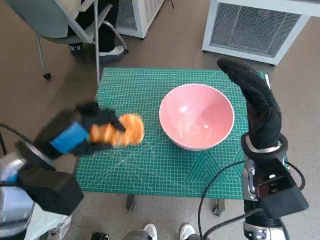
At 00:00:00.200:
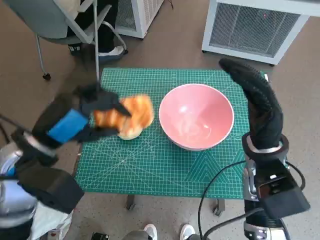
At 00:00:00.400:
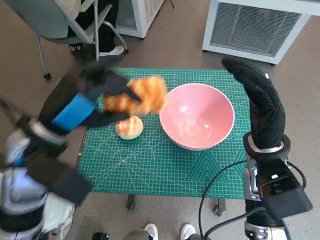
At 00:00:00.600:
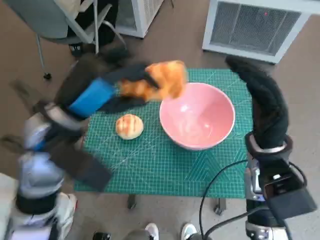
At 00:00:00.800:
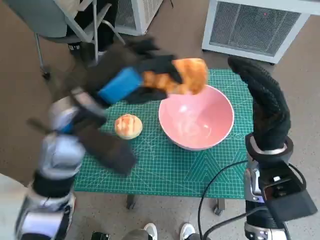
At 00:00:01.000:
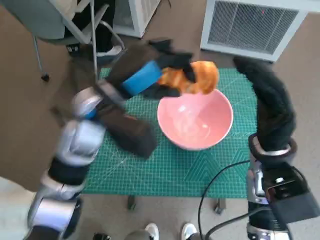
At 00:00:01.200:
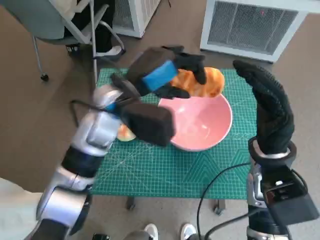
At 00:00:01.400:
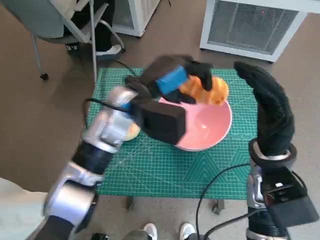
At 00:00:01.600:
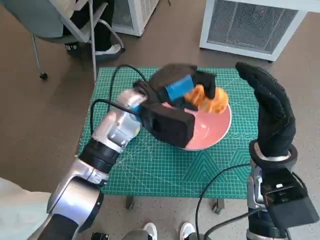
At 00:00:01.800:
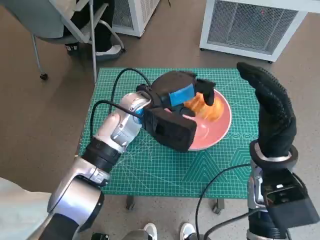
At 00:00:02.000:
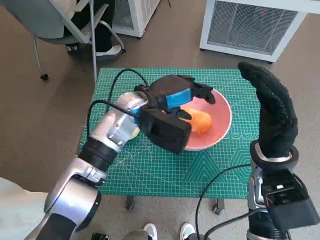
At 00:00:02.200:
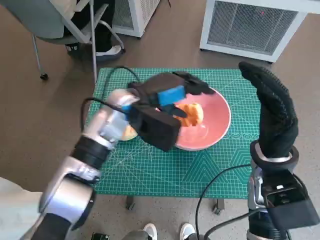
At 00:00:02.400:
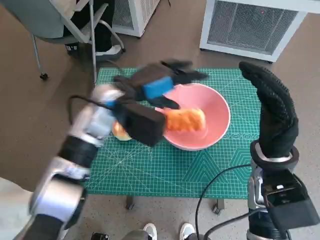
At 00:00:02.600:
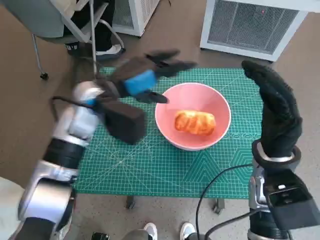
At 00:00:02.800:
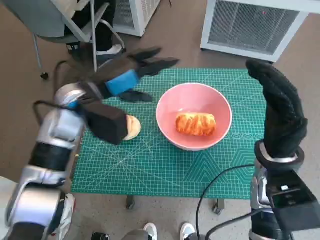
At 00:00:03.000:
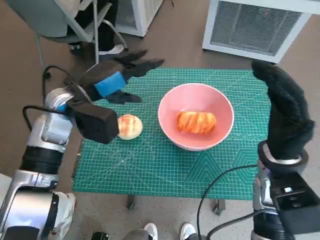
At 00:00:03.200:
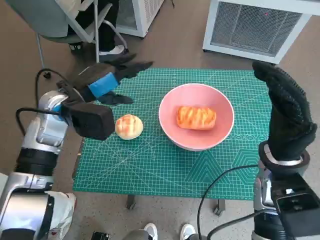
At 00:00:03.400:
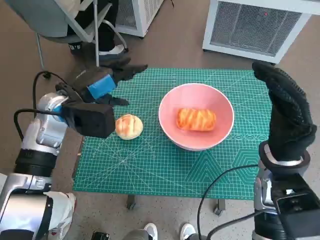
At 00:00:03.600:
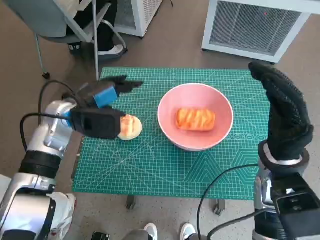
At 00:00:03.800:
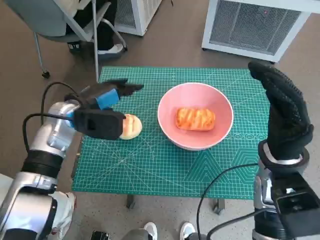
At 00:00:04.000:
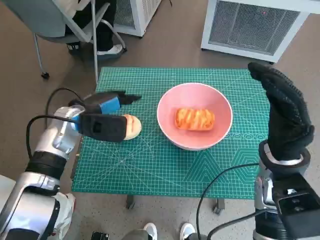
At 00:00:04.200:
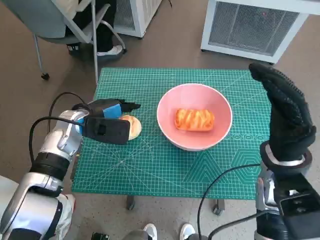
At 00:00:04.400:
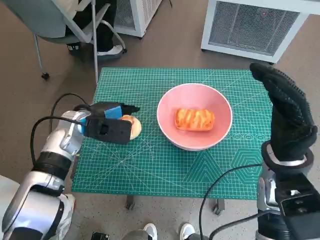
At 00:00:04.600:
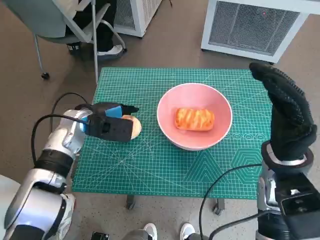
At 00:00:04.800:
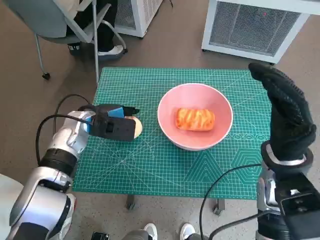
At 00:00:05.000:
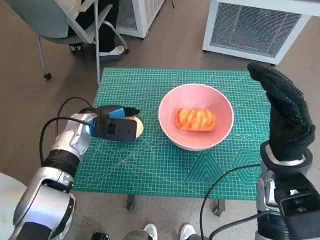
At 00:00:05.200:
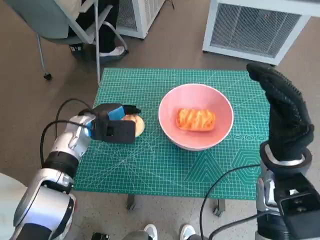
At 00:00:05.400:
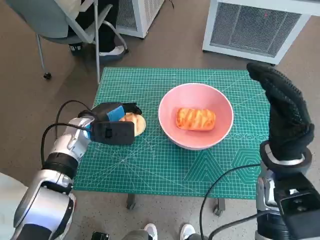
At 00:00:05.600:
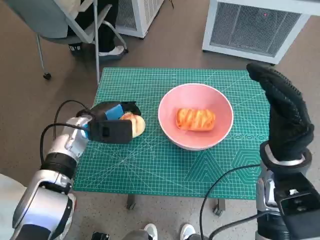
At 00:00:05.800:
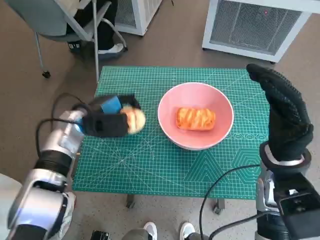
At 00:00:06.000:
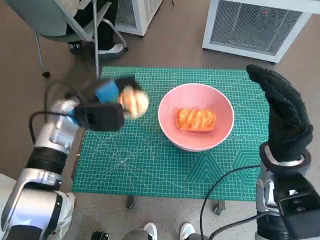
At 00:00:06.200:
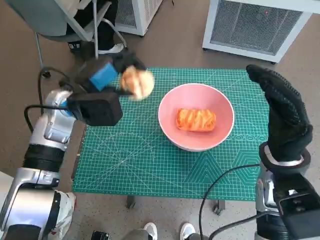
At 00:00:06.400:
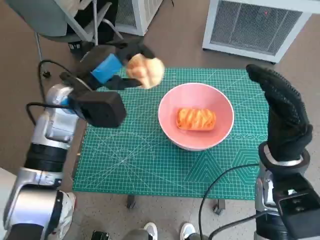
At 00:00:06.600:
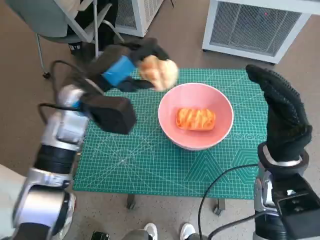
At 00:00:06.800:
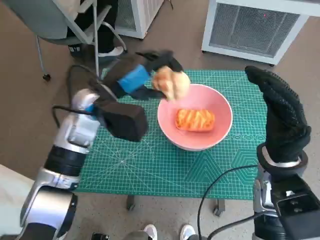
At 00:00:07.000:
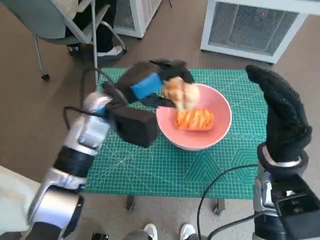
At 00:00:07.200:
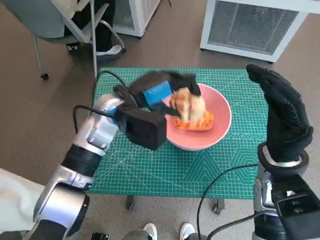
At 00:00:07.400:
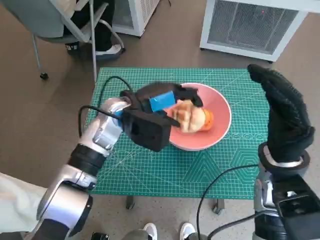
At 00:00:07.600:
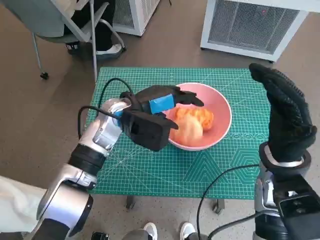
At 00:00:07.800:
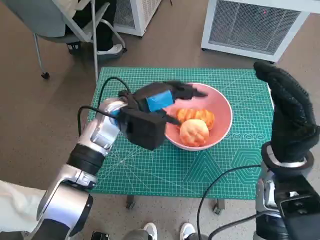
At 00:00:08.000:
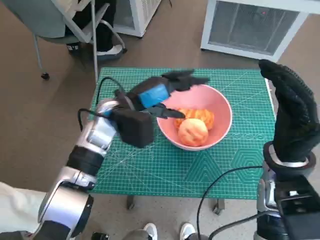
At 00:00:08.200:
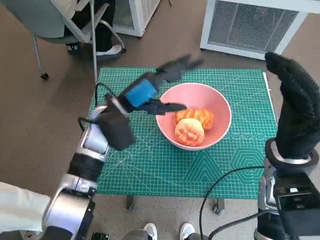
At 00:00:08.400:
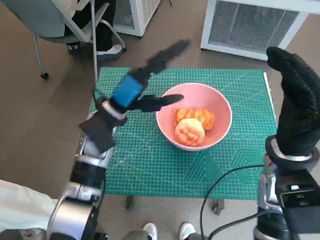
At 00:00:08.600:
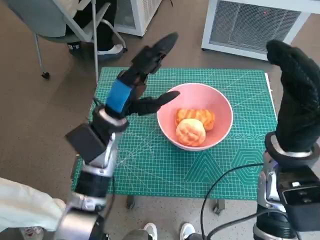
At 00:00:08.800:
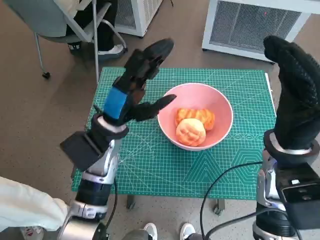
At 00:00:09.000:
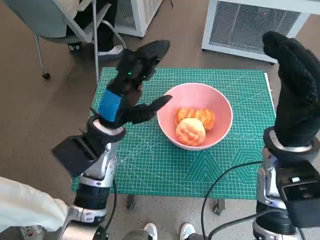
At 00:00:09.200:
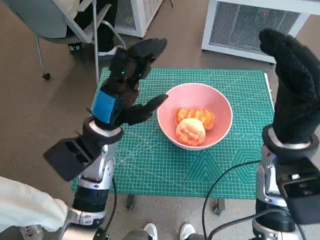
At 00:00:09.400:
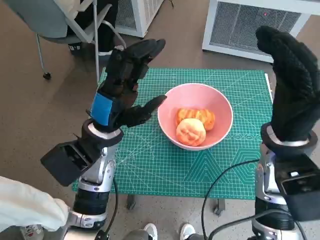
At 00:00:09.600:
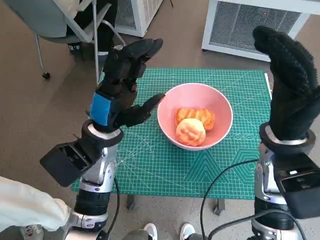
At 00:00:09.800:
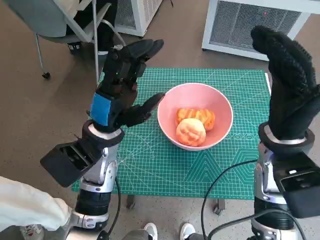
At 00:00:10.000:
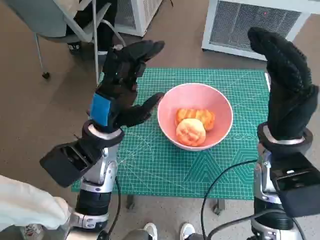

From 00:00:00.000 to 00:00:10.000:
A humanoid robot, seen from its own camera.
Task of the whole recording: Push the bowl to the center of the table and put the bread into the bowl.
Step, from 00:00:00.000 to 00:00:02.400: Place the long bread in pink bowl with left hand.
Step, from 00:00:02.600 to 00:00:05.000: Grasp the round bread with left hand.
Step, from 00:00:05.200 to 00:00:08.000: Place the round bread in pink bowl with left hand.
From 00:00:00.000 to 00:00:01.400: The left hand heads to the right and forward, covering about 20 cm.
From 00:00:01.400 to 00:00:02.800: The left hand shifts about 10 cm to the left.
From 00:00:02.800 to 00:00:04.200: The left hand goes some 10 cm downward.
From 00:00:04.200 to 00:00:05.800: The hands stay close to where they were, moving slightly.
From 00:00:05.800 to 00:00:07.200: The left hand goes some 10 cm to the right and upward.

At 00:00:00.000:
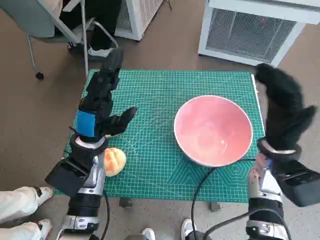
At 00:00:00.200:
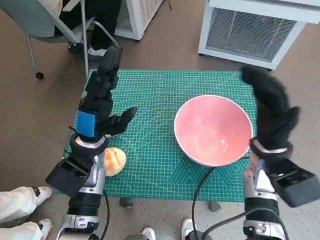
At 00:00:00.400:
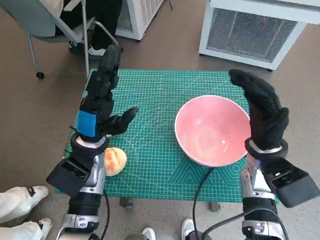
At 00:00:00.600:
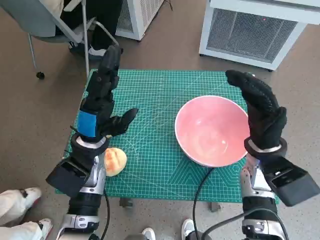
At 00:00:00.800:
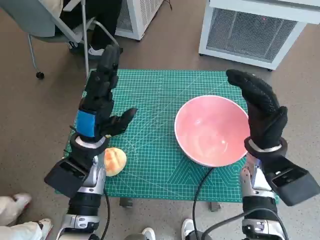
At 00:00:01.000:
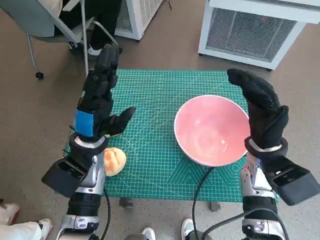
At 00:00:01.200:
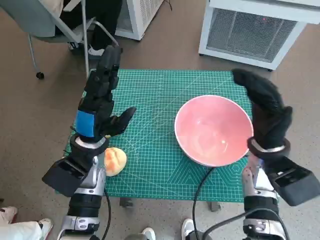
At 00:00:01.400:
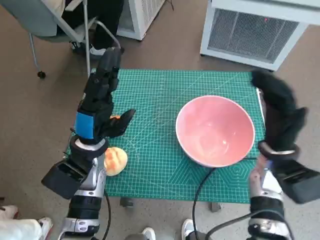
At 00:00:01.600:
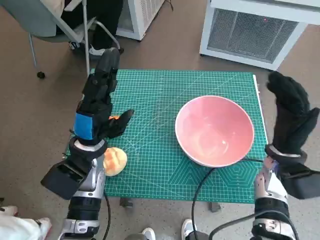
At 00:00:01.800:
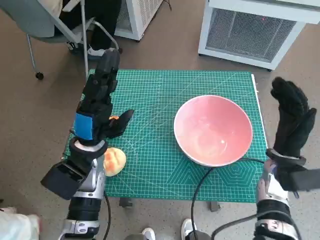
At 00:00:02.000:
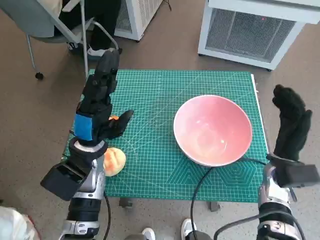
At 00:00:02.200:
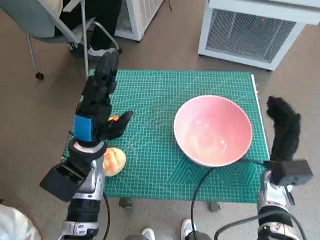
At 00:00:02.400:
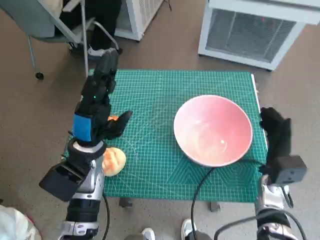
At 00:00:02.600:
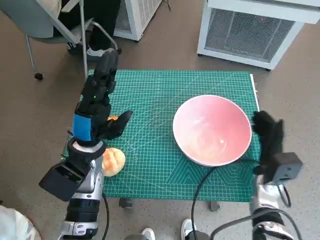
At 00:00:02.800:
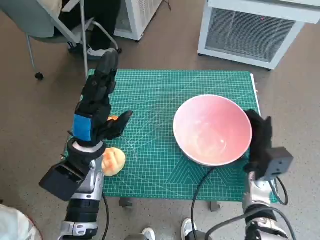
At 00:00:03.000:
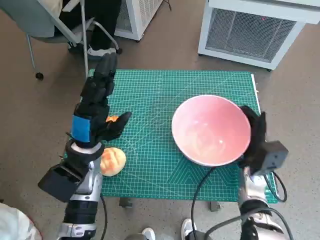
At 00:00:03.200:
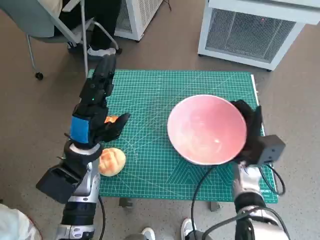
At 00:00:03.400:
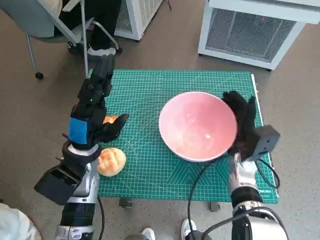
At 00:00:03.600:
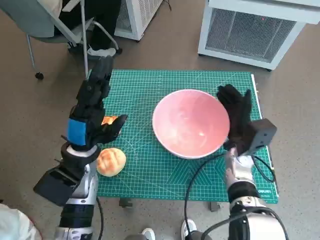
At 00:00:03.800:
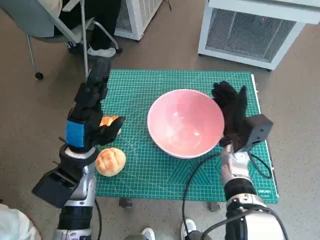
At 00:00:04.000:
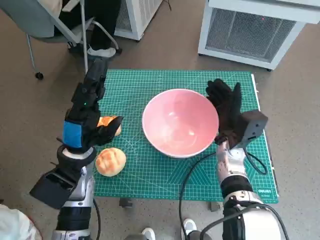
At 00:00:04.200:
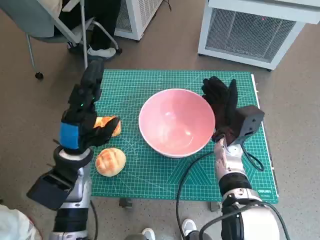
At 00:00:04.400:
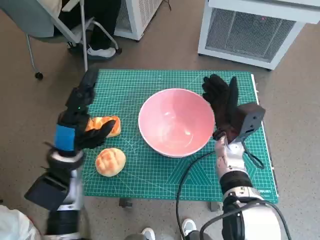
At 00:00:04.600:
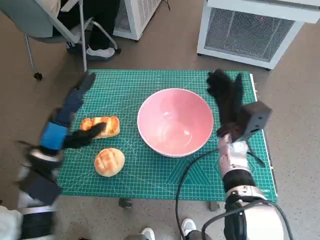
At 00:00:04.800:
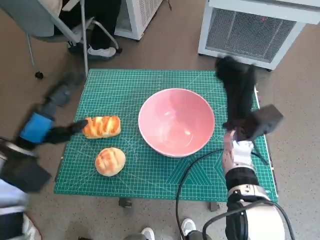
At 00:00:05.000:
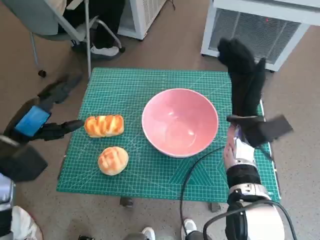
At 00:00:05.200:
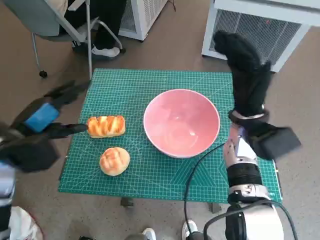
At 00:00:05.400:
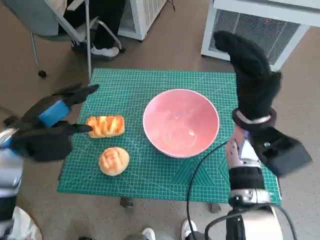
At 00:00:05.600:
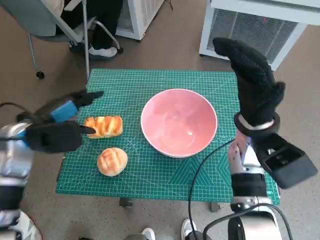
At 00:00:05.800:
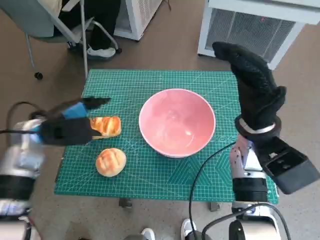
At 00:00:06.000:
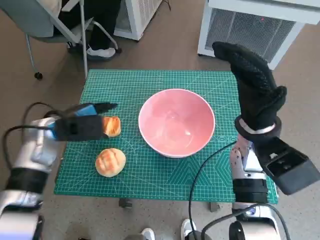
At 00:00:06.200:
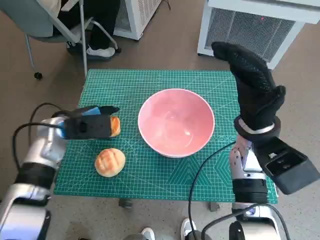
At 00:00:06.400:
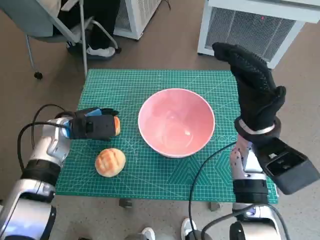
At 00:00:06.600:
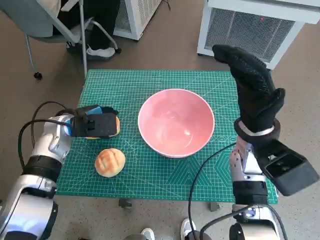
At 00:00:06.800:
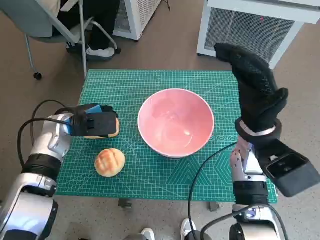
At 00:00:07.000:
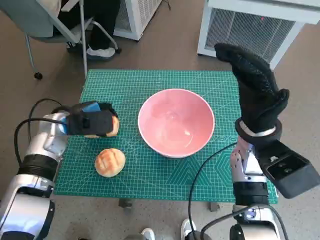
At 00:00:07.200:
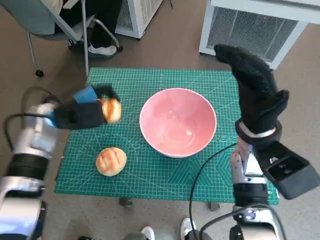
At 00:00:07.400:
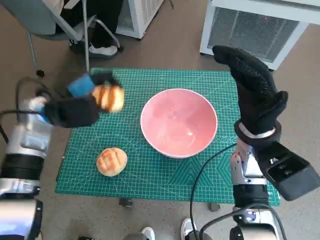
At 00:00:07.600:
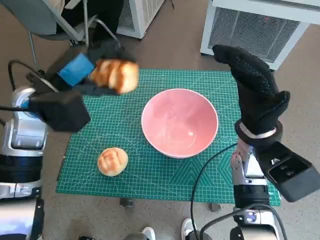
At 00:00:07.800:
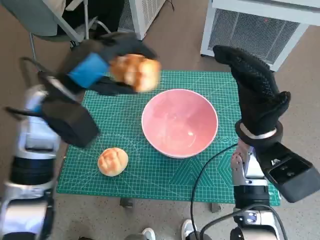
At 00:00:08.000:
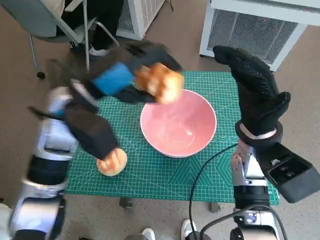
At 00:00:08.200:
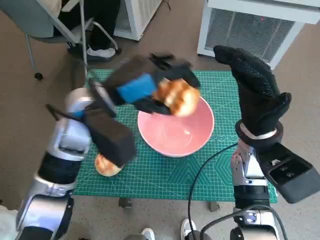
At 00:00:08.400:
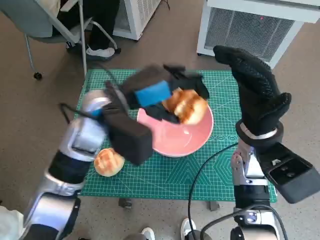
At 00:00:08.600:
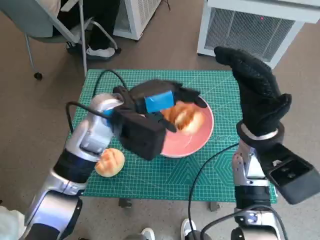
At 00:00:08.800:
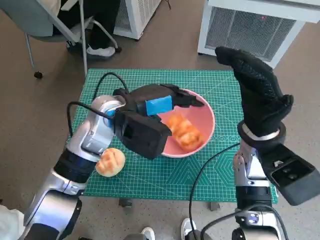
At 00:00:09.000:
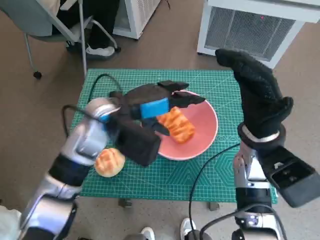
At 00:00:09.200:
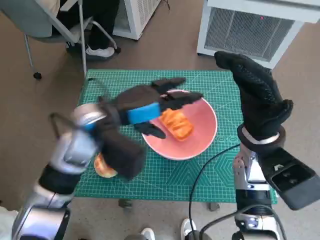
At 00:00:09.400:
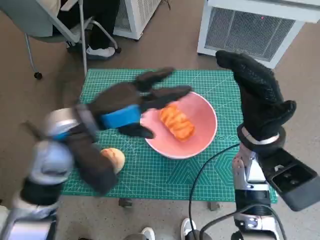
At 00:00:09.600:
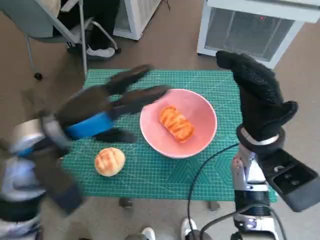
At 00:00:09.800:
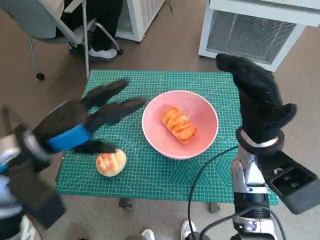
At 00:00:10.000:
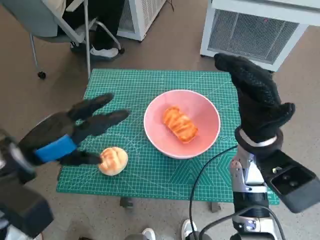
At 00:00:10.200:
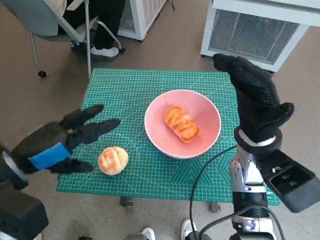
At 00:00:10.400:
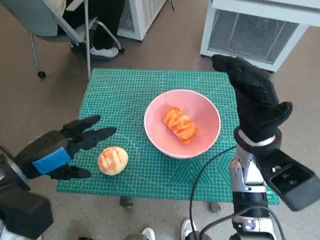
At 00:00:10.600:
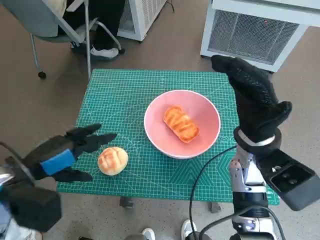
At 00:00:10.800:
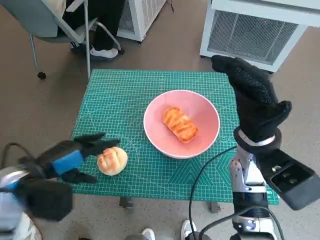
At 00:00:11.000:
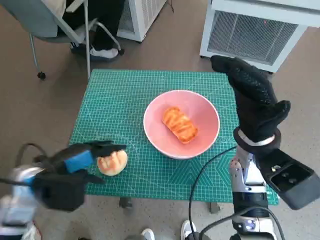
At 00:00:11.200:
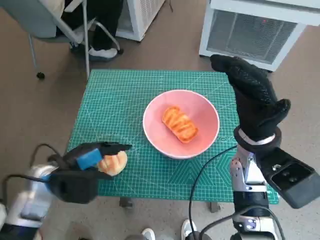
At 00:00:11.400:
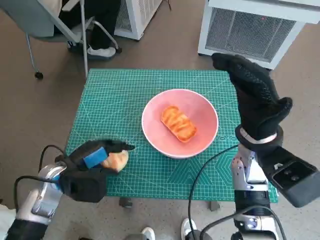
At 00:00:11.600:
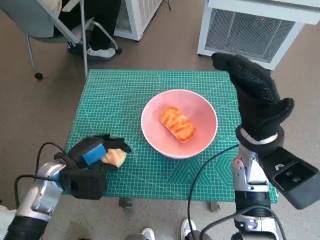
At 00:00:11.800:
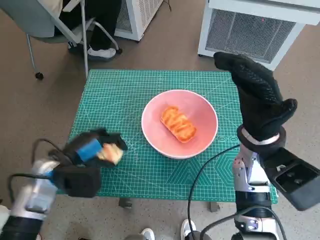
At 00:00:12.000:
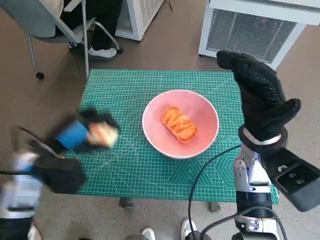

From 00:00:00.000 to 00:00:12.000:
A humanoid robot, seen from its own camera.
Task of the whole recording: Push the bowl to the center of the table and put the bread into the bowl.
Step, from 00:00:00.000 to 00:00:04.600: Move the pink bowl to the center of table with right hand.
Step, from 00:00:04.800 to 00:00:06.800: Grasp the long bread with left hand.
Step, from 00:00:07.000 to 00:00:09.000: Place the long bread in pink bowl with left hand.
Step, from 00:00:09.200 to 00:00:11.600: Grasp the round bread with left hand.
From 00:00:01.600 to 00:00:03.000: The right hand goes about 10 cm downward.
From 00:00:03.000 to 00:00:04.400: The right hand is displaced to the left and upward by approximately 10 cm.
From 00:00:04.400 to 00:00:06.000: The left hand shifts some 5 cm forward, while the right hand travels upward by about 10 cm.
From 00:00:06.000 to 00:00:07.600: The left hand is displaced upward by about 10 cm.
From 00:00:07.600 to 00:00:09.000: The left hand goes roughly 10 cm to the right.
From 00:00:09.000 to 00:00:10.400: The left hand goes roughly 20 cm to the left and backward.
